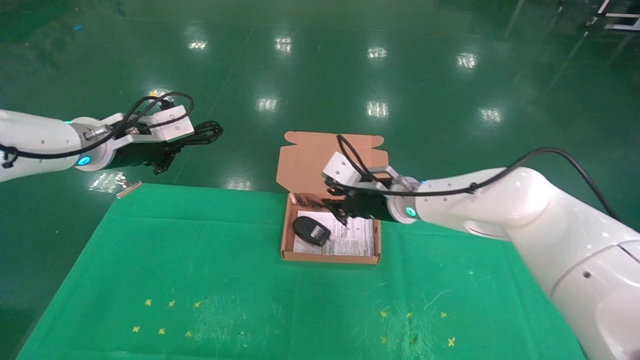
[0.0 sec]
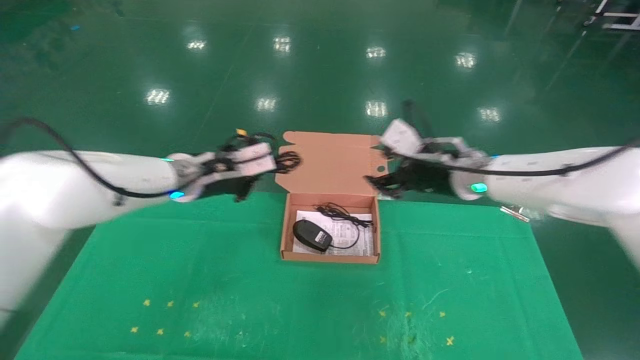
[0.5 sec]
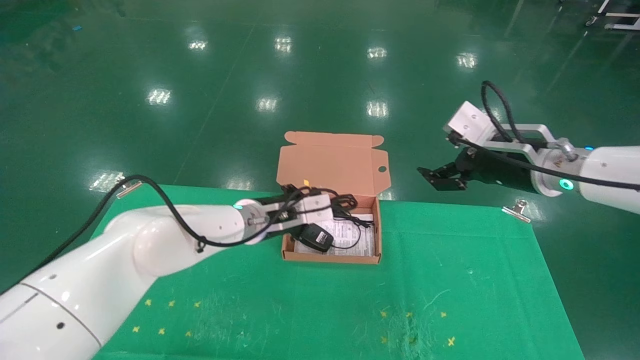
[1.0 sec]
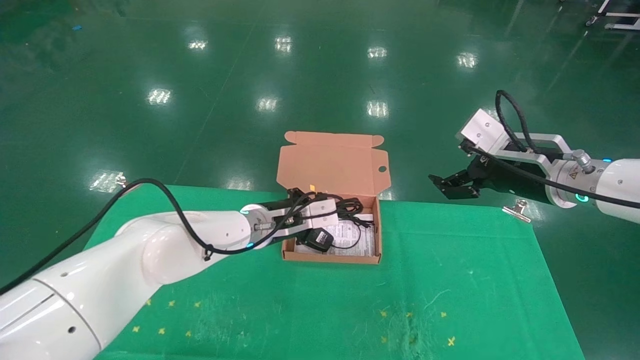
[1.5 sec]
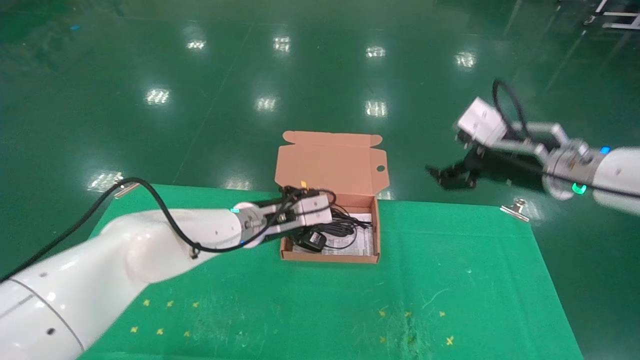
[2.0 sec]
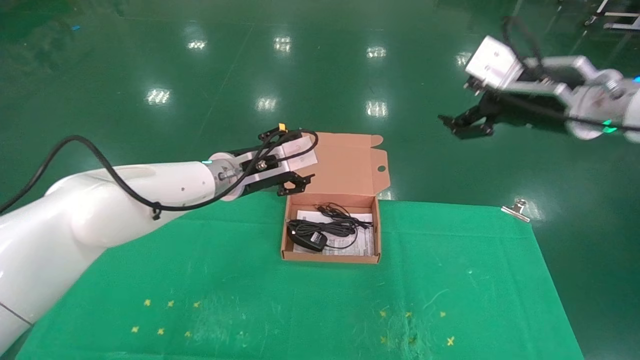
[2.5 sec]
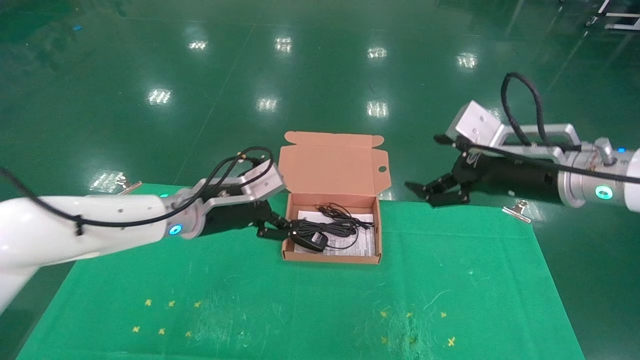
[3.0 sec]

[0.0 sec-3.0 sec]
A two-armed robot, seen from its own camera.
Task of the whole recording: grasp data cable left put into box grasp mouse right put into box.
0.0 sec to 1.5 sec: The left gripper shifts roughly 25 cm to the right and downward. Meanwhile the right gripper moves to the right and backward, approximately 20 cm, and opens its fingers.
1.5 sec to 3.0 sec: The right gripper moves roughly 5 cm. Meanwhile the left gripper shifts about 10 cm to the left and backward, and opens.

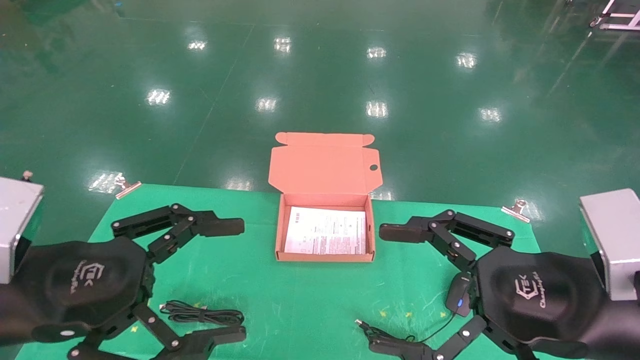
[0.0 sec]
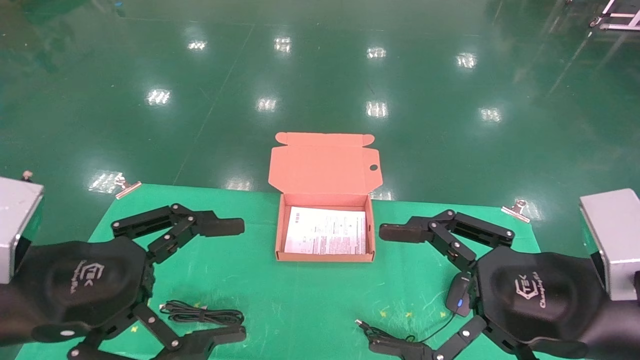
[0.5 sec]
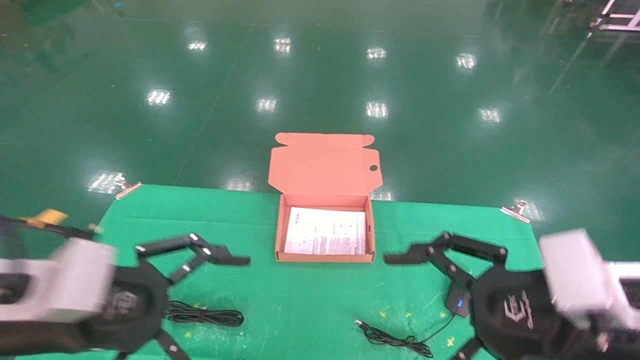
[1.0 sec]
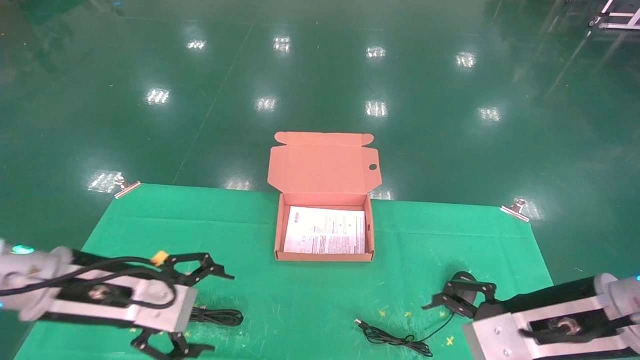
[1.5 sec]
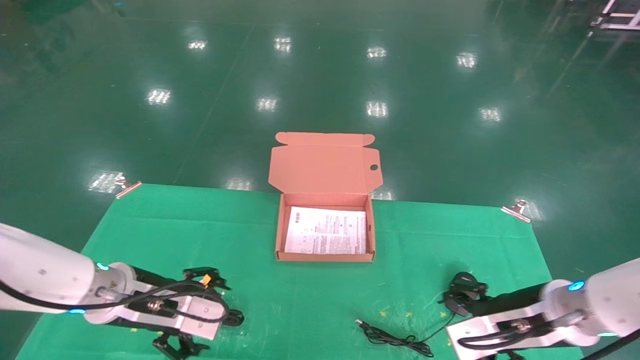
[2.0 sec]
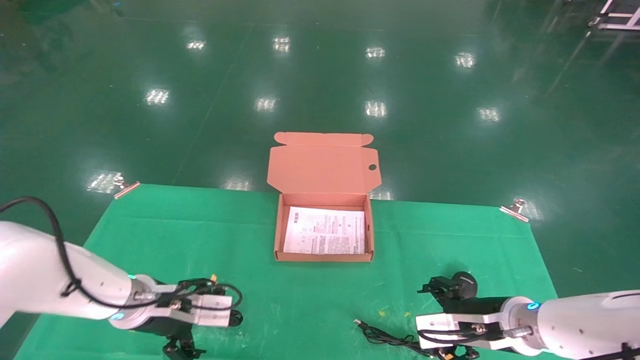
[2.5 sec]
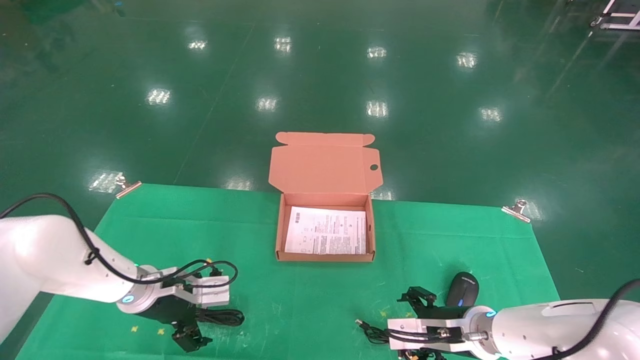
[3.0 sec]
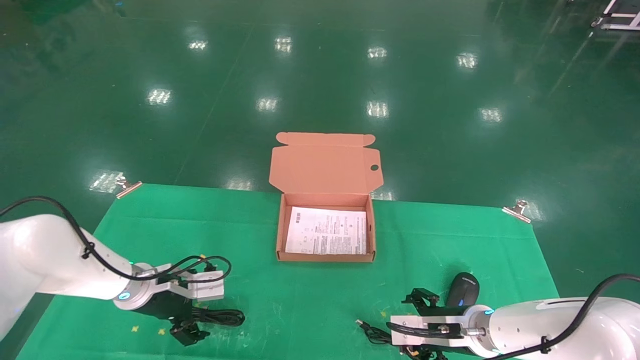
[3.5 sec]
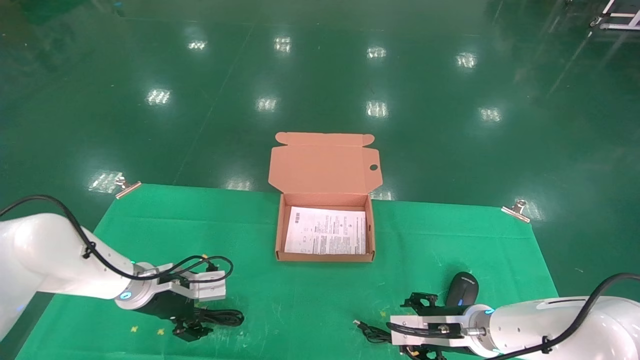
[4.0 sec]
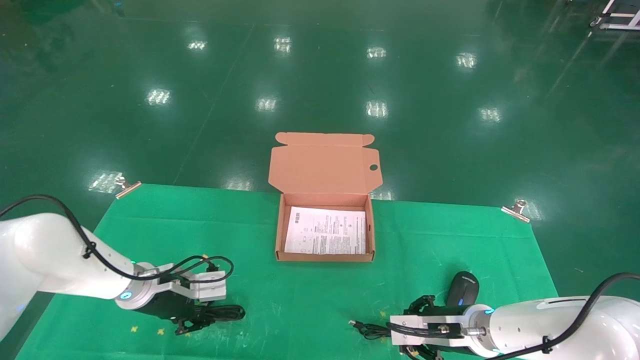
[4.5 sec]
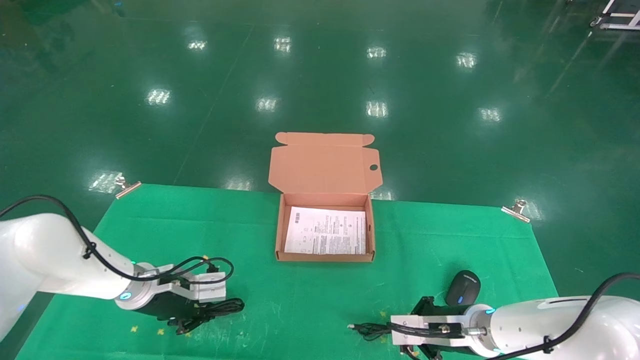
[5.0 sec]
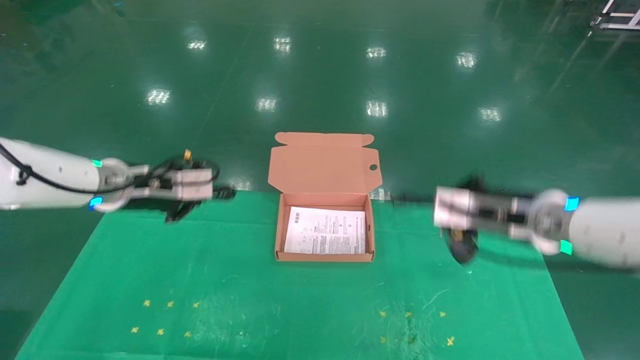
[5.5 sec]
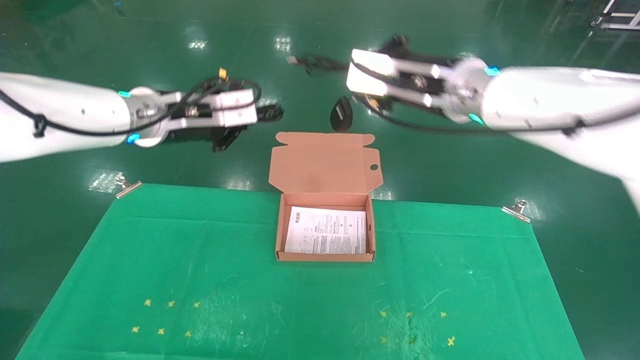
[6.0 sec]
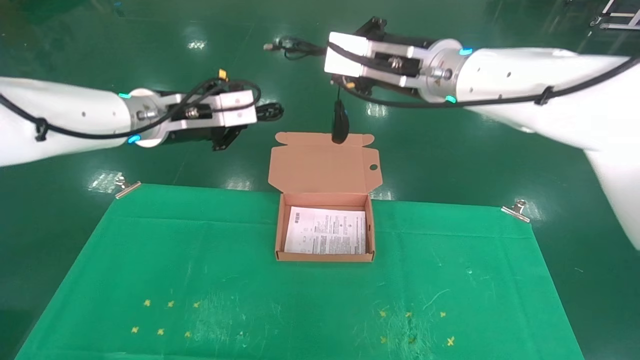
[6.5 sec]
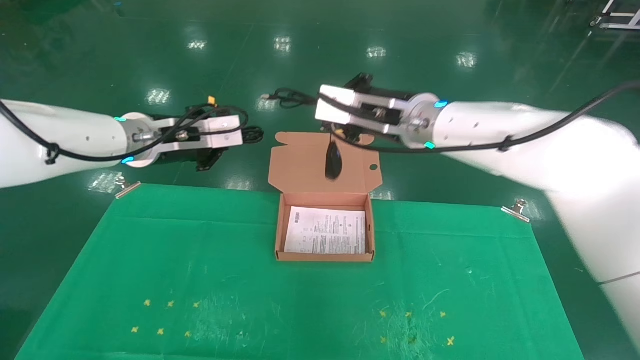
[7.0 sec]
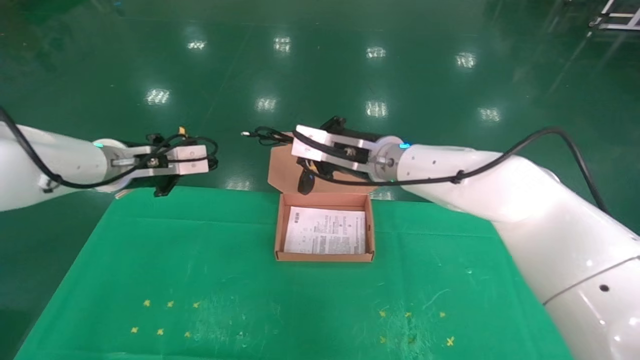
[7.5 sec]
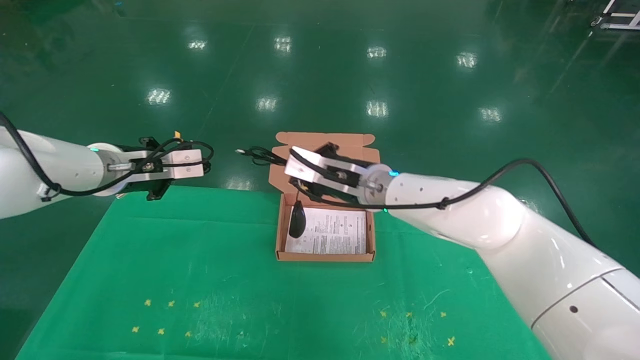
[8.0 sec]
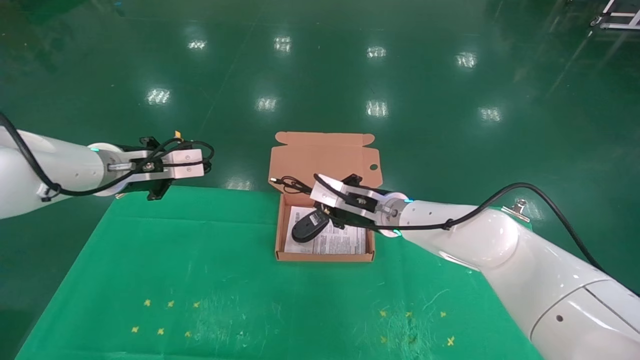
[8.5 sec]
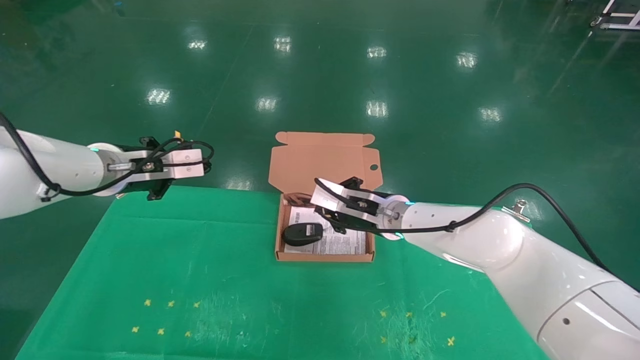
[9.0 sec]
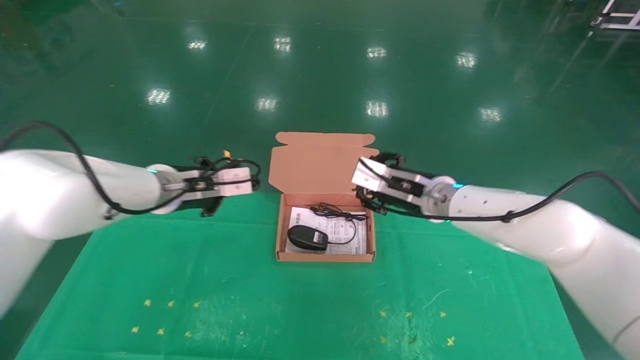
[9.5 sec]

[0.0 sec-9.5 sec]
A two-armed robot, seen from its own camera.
Task of the whole recording: grasp data cable left put into box grasp mouse right put into box.
Step, 1.5 sec to 5.5 sec: Grab and pick up both the mouse and power cord from the accessory packaging area at the same time.
0.0 sec to 2.0 sec: Both grippers travel together forward and downward, roughly 15 cm.
2.0 sec to 4.0 sec: The left gripper goes about 10 cm forward and downward; the right gripper moves downward and forward, some 10 cm.
4.0 sec to 5.5 sec: The grippers both shift upward by approximately 20 cm. The left gripper closes its fingers, while the right gripper closes up.
5.5 sec to 7.5 sec: The right gripper heads to the left, covering some 20 cm.
7.5 sec to 9.5 sec: The left gripper travels to the right by approximately 5 cm. Meanwhile the right gripper is displaced to the right and downward by some 10 cm, and opens up.

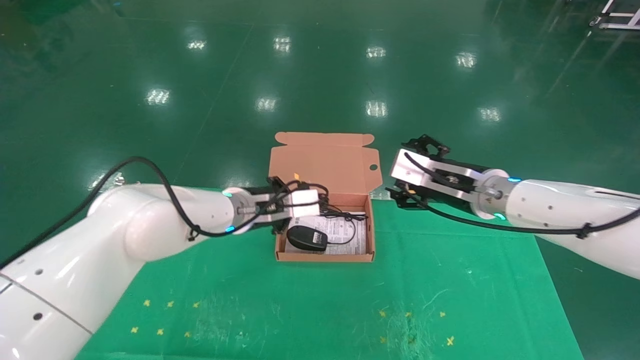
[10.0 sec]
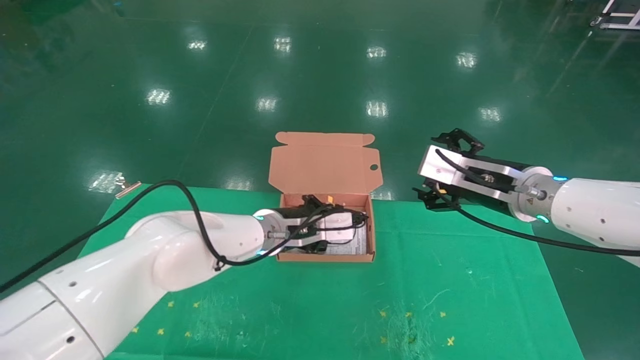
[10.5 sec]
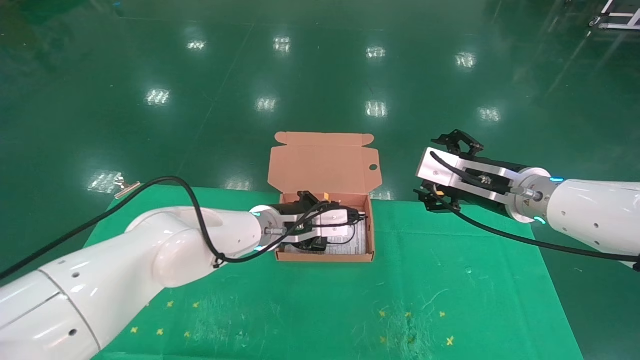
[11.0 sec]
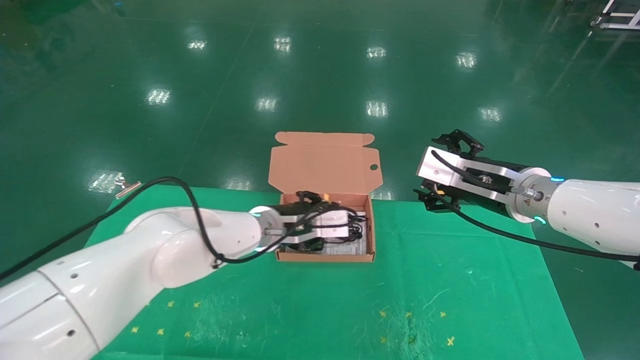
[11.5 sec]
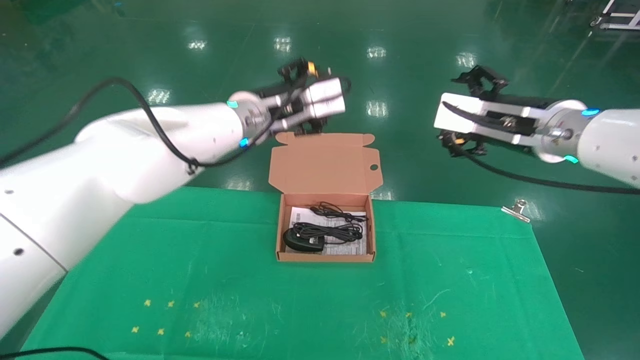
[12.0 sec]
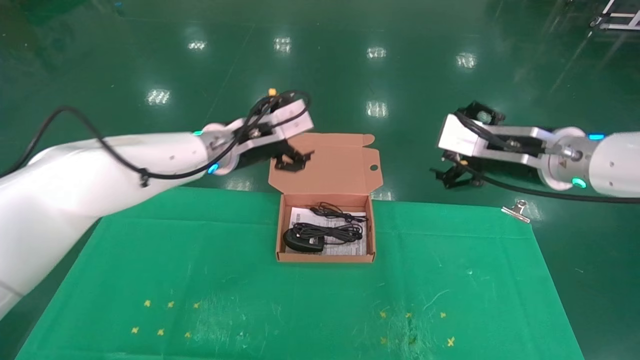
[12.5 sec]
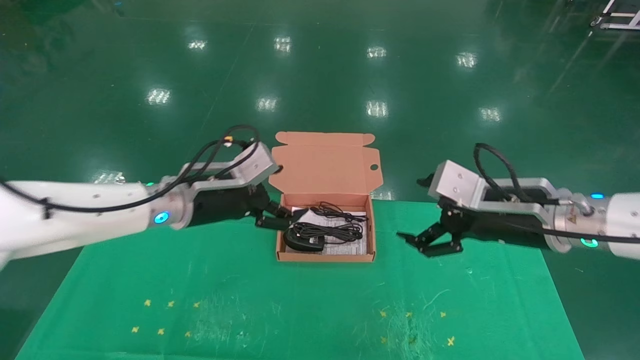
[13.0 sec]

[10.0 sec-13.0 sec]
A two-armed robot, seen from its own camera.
Task of the whole recording: grasp data cable left put into box grasp mouse right put into box.
Step, 10.0 sec to 12.0 sec: Place the mouse and power cord into the box.
10.0 sec to 11.5 sec: The right gripper ends up some 5 cm from where it was.
11.5 sec to 13.0 sec: The left gripper goes some 10 cm to the left and backward, goes upward and returns, some 10 cm each way, and opens up, while the right gripper goes some 5 cm backward, and travels upward and back again, some 5 cm each way.
